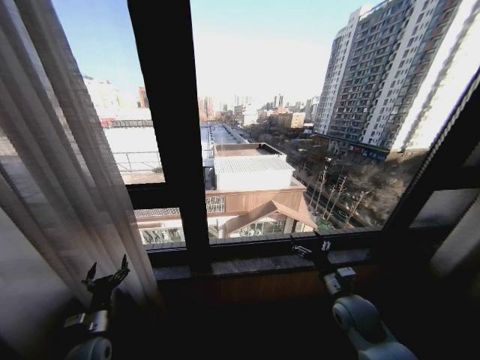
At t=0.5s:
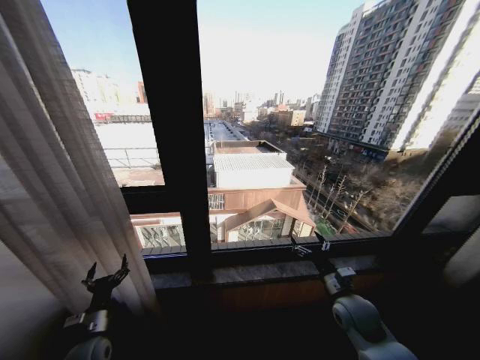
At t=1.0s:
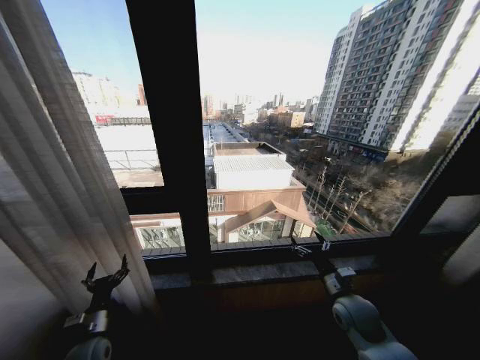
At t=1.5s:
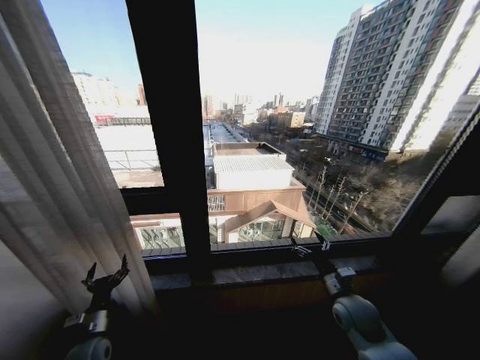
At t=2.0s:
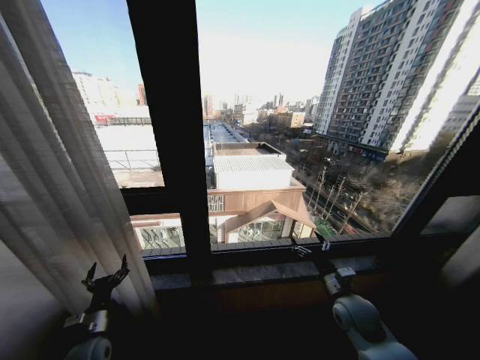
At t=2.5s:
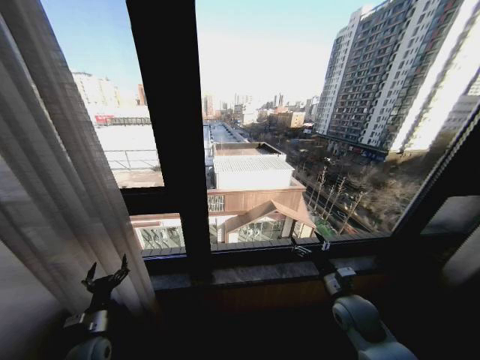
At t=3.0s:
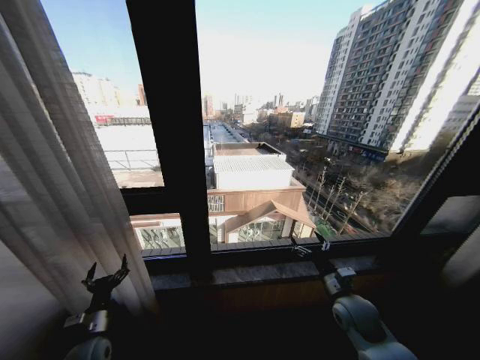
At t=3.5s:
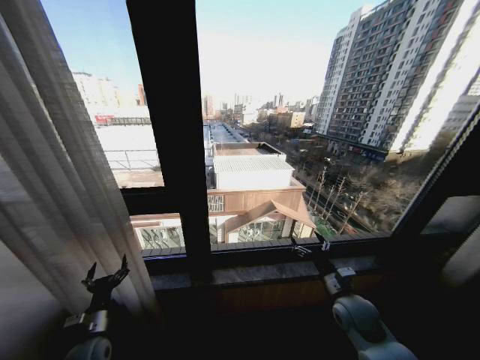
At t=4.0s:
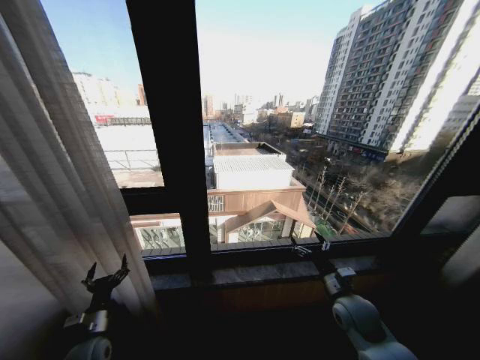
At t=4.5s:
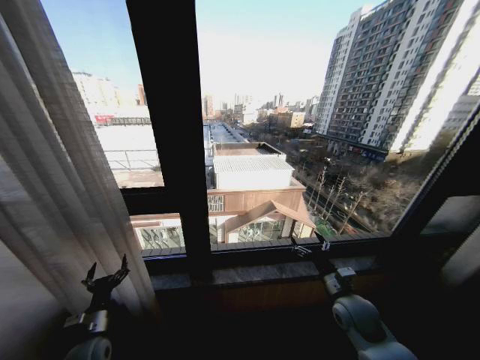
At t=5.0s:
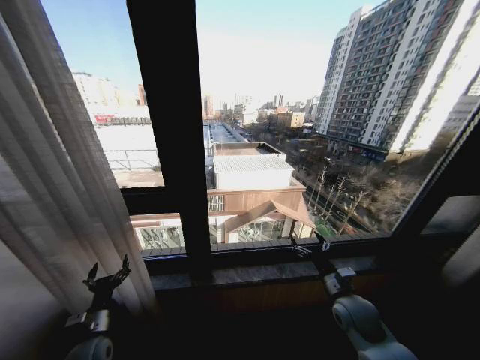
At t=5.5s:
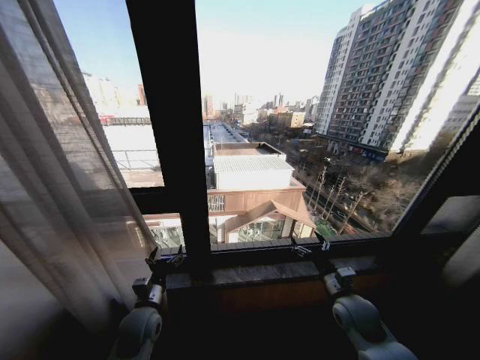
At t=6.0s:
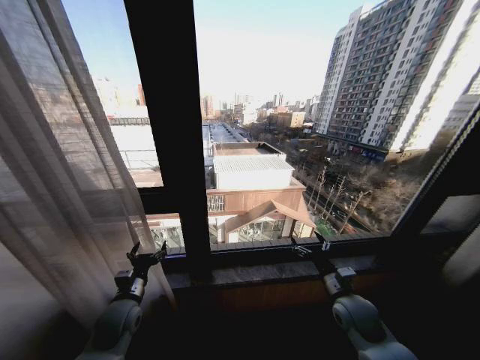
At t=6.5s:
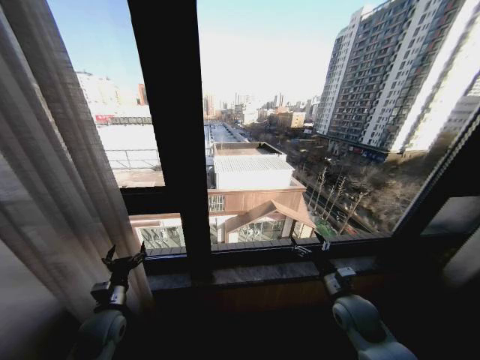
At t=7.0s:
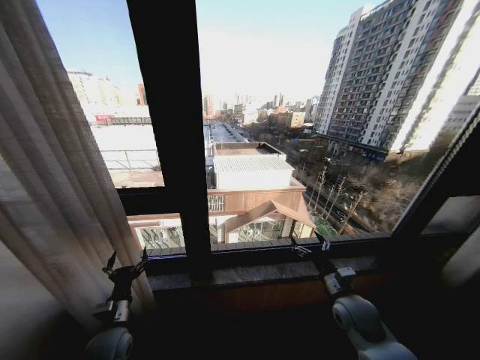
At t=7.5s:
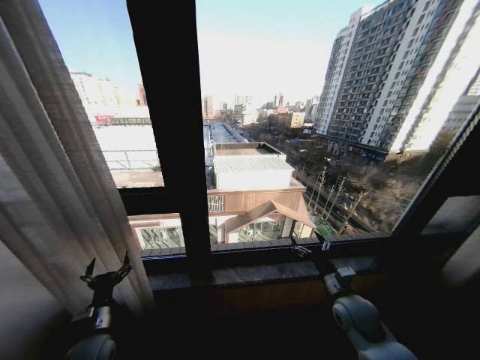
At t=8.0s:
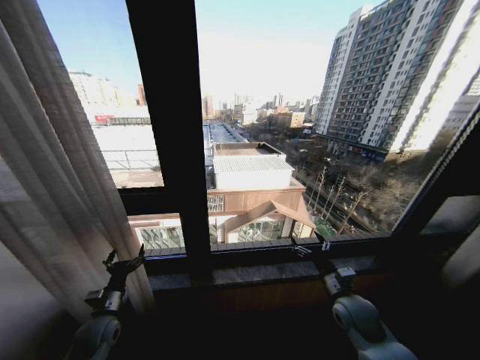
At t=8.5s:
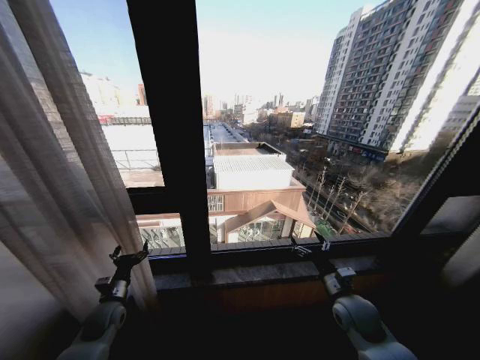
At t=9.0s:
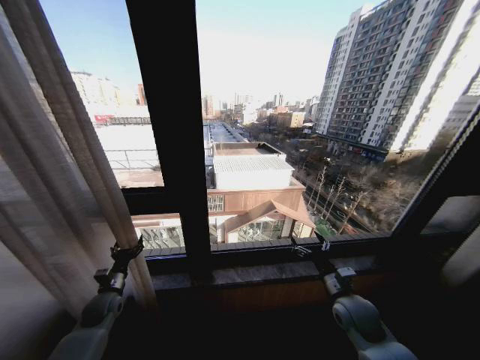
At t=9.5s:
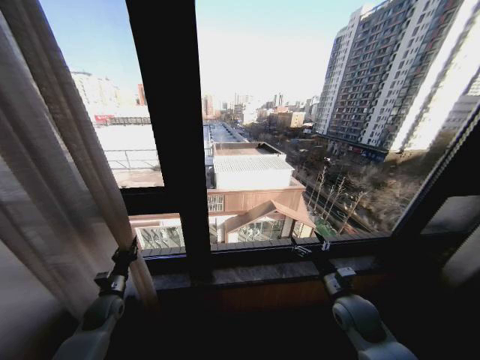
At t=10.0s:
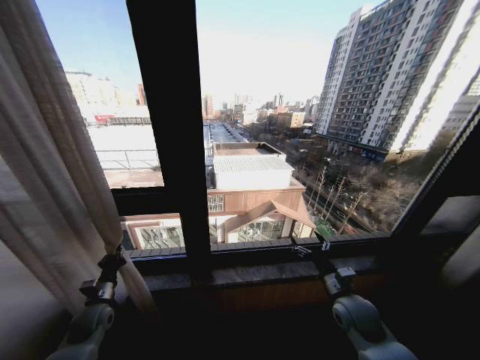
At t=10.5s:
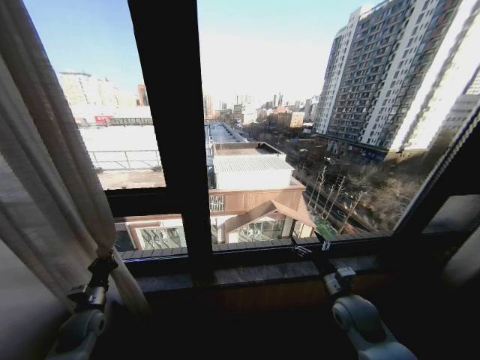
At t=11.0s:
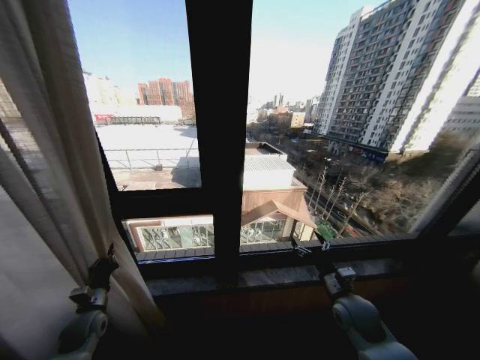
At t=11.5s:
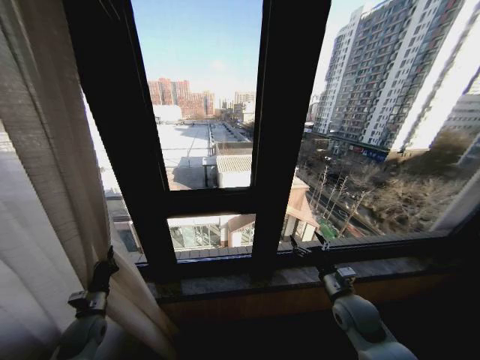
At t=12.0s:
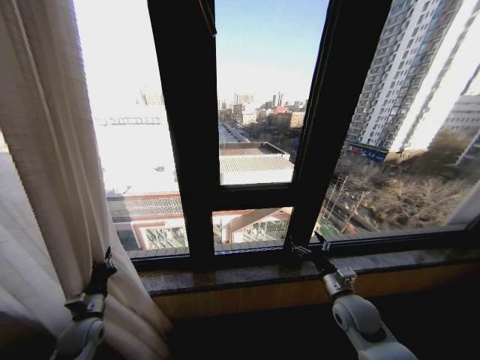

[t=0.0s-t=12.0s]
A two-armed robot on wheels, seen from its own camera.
Task of the whole recording: Open the curtains by pulling them apart, changing their state from closed to fully open.
t=0.0s to t=4.0s: Both grippers stay about where they are.
t=4.0s to t=6.0s: The left gripper moves upward, to the right and forward, approximately 10 cm.
t=6.0s to t=8.0s: The left gripper heads to the left and downward, covering about 10 cm.
t=8.0s to t=10.0s: The left gripper ends up about 5 cm from where it was, and closes.

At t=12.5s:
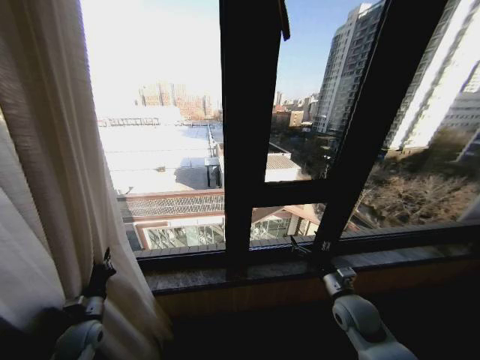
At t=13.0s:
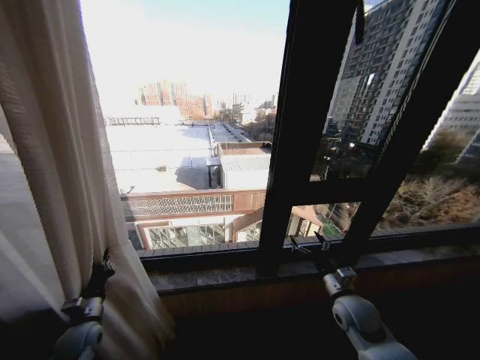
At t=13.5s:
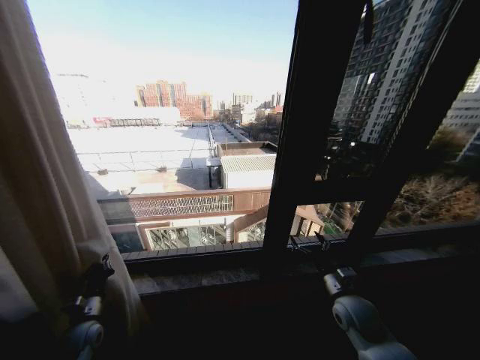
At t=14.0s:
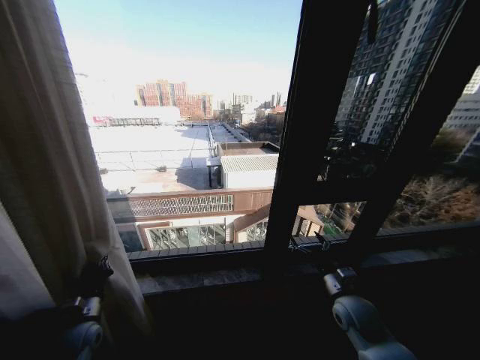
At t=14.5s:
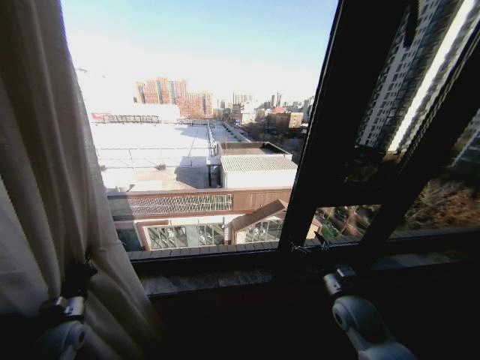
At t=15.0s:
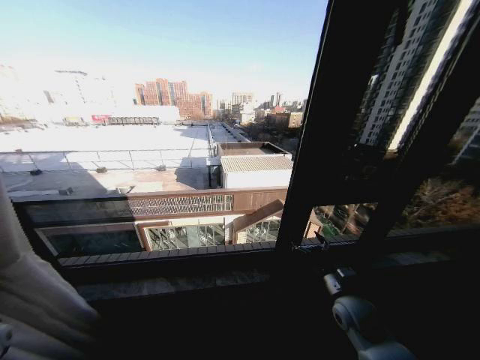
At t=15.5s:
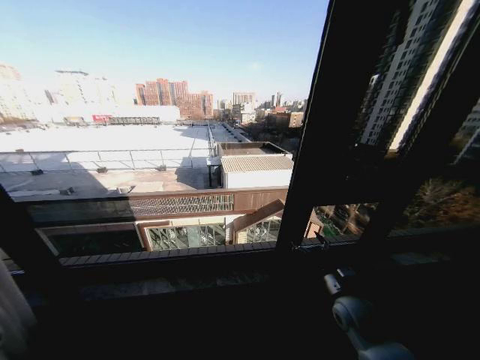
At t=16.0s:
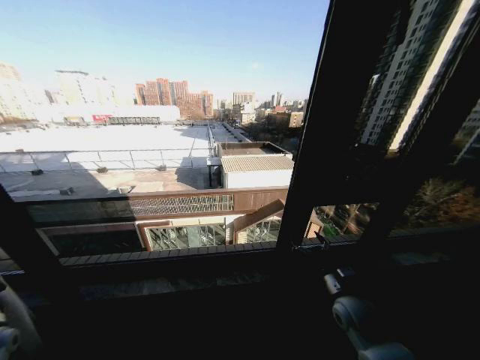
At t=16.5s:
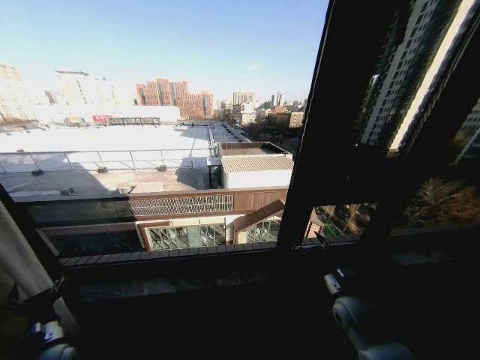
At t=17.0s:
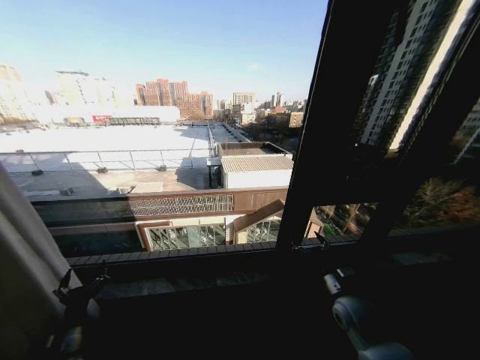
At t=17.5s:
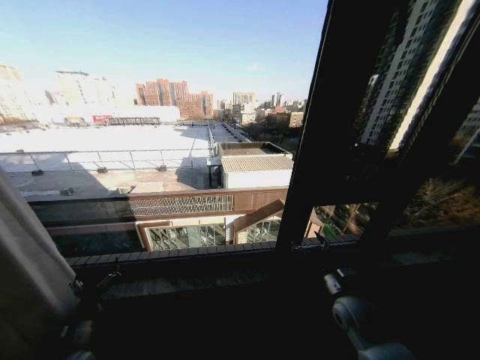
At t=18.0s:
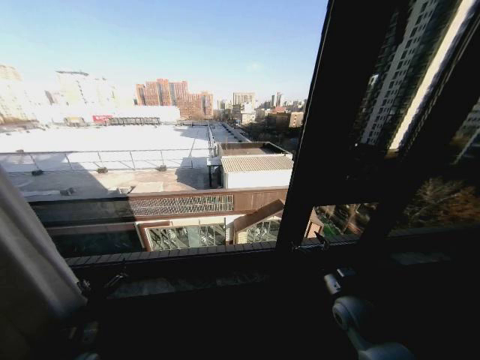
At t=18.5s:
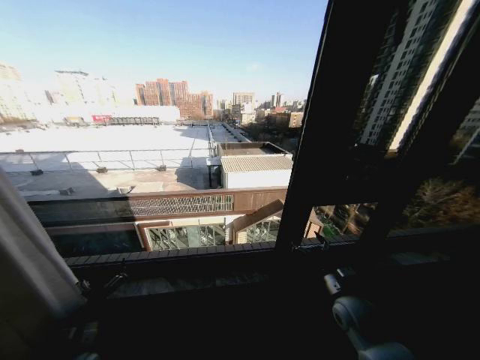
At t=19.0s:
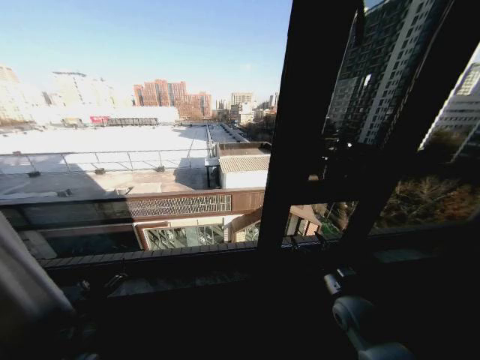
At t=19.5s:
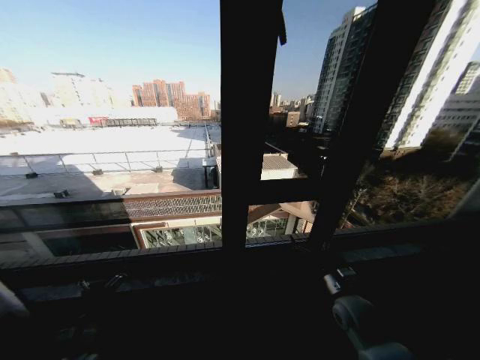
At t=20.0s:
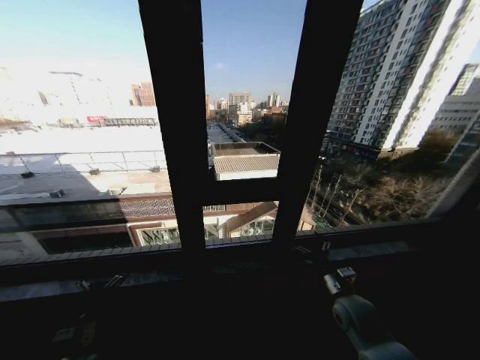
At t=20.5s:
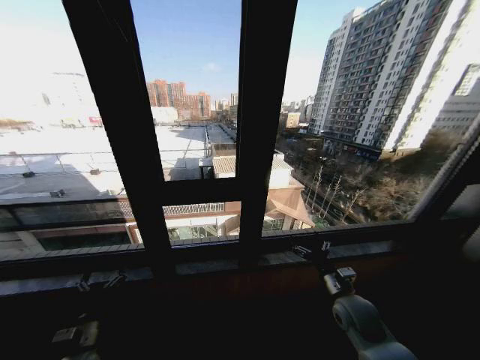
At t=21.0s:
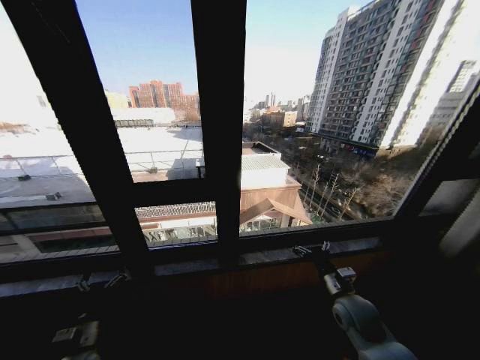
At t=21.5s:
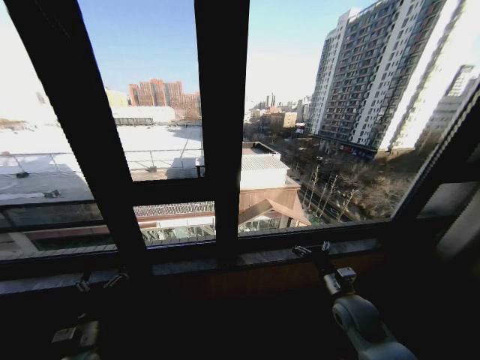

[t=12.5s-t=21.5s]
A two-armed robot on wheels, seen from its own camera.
Task of the whole recording: Open the curtains by pulling them apart, changing their state from closed to fully open.
t=14.5s to t=17.0s: The left gripper moves backward, about 5 cm, travels to the left and back again, approximately 20 cm each way, and opens up.

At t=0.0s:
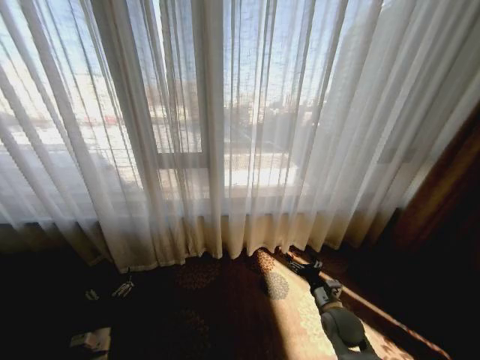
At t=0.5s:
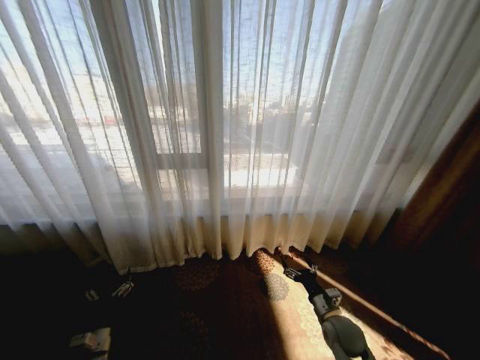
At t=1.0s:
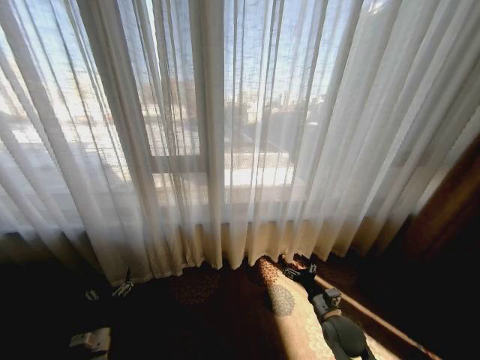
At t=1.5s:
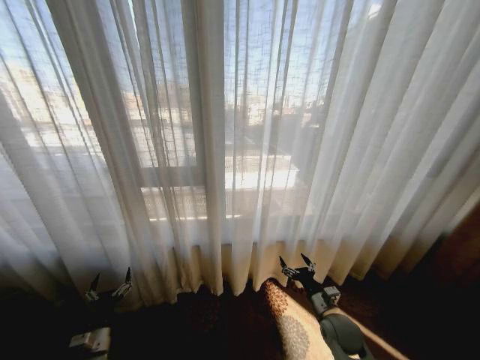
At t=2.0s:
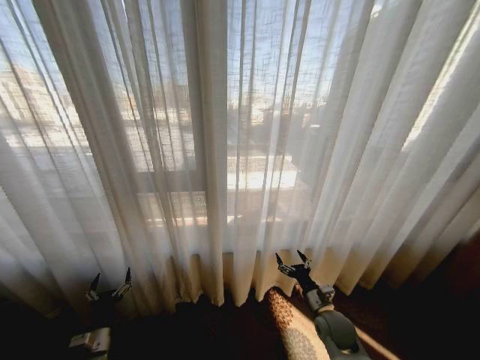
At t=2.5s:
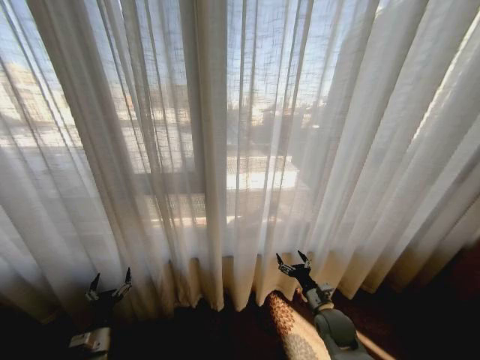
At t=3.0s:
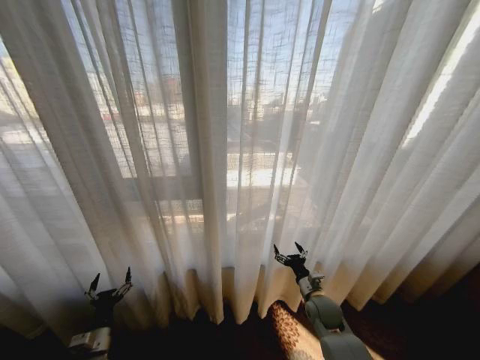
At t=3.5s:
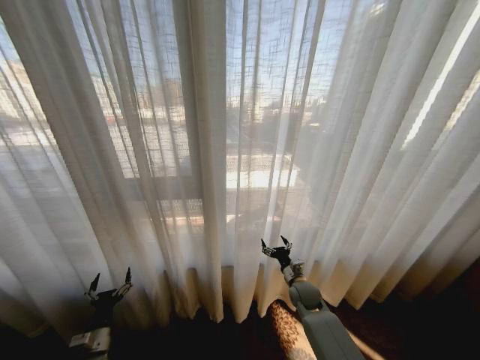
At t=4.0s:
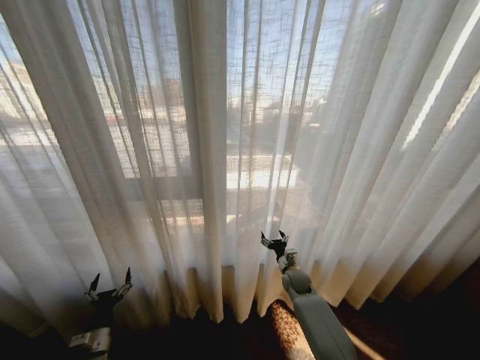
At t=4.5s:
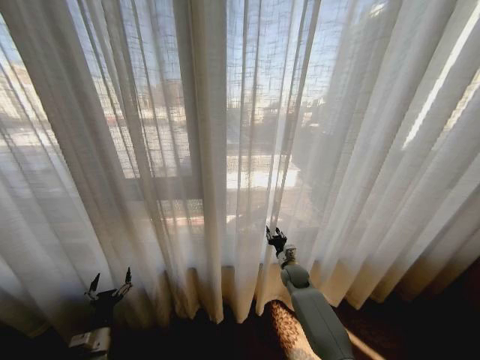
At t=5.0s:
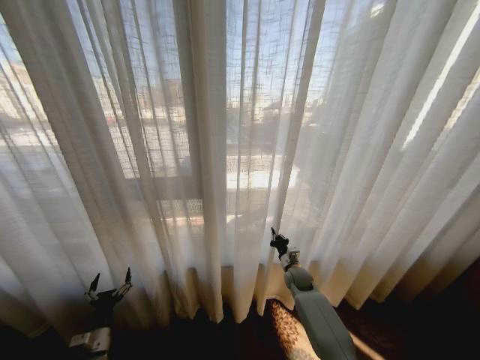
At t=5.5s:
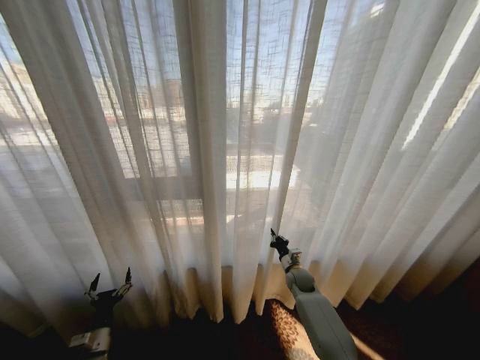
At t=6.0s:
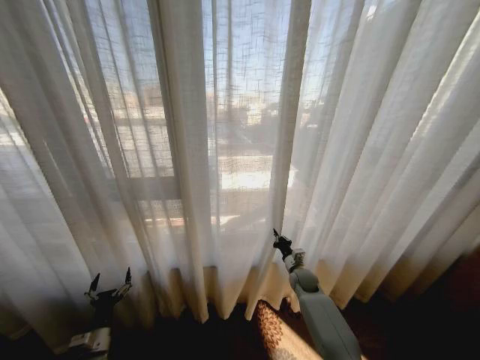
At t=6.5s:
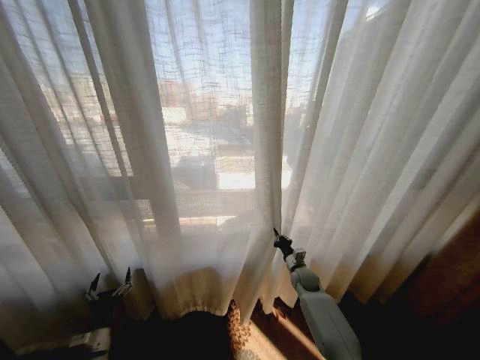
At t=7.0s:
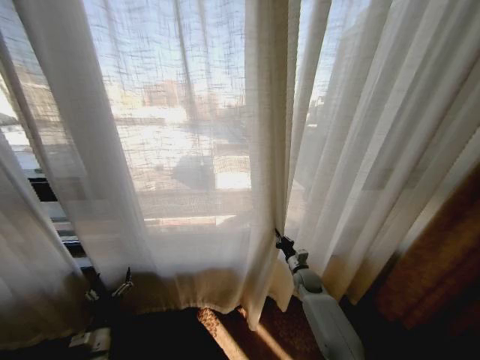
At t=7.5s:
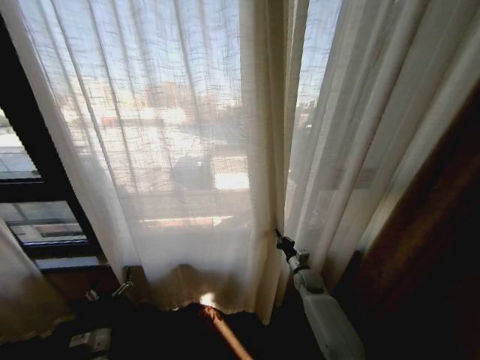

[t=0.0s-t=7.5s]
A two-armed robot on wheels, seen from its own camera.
Task of the whole recording: Open the curtains by pulling them apart, changing their state from closed to fully open.
t=2.0s to t=4.0s: The right gripper shifts some 15 cm forward.
t=4.0s to t=5.5s: The right gripper closes its fingers.
